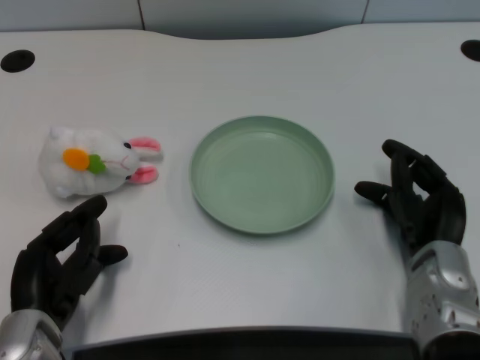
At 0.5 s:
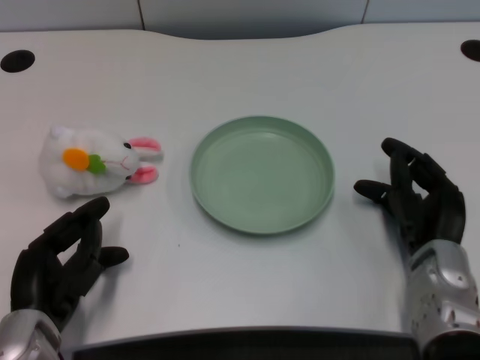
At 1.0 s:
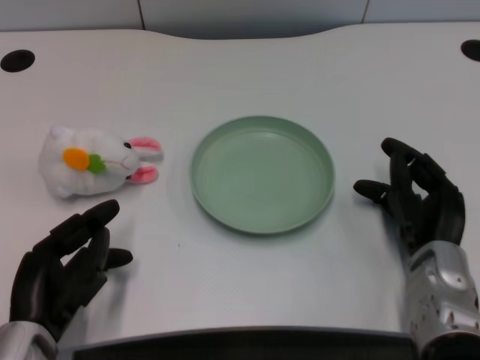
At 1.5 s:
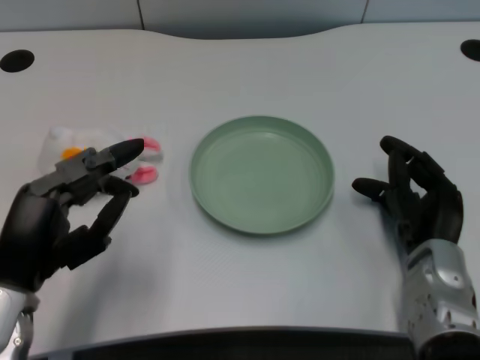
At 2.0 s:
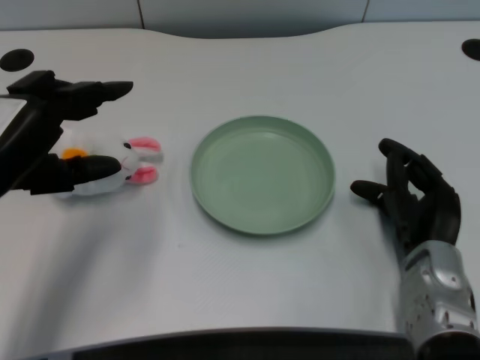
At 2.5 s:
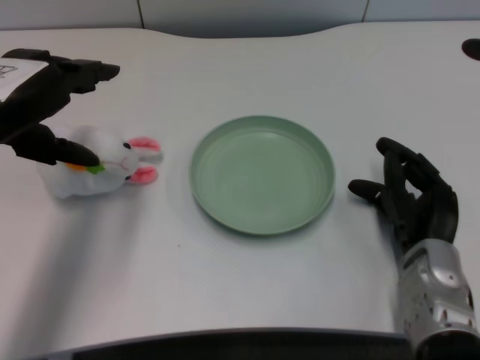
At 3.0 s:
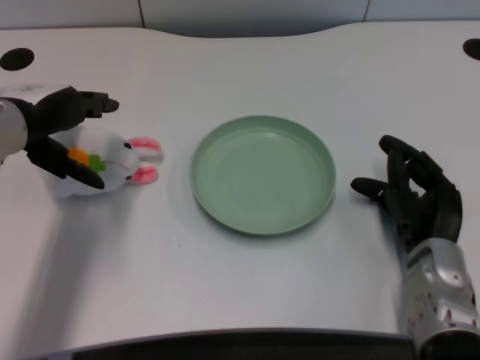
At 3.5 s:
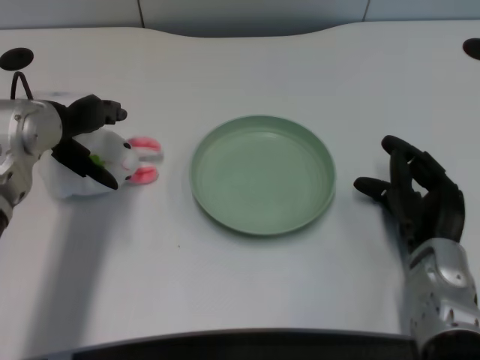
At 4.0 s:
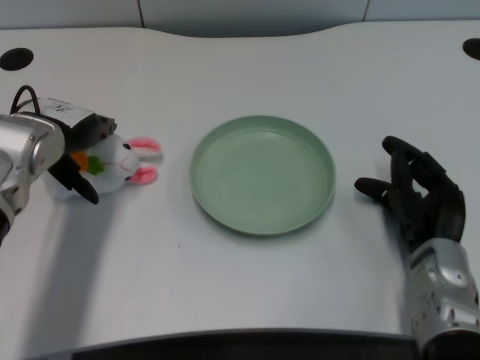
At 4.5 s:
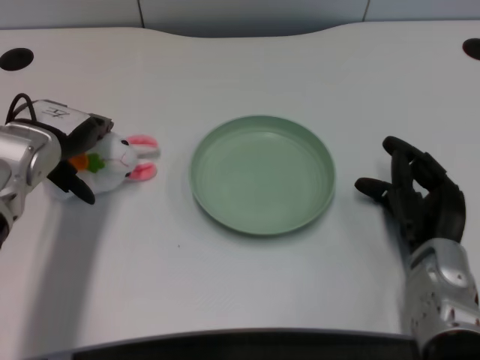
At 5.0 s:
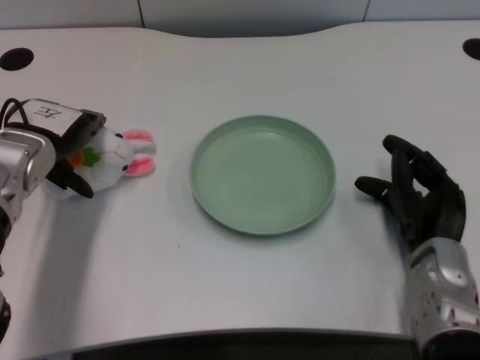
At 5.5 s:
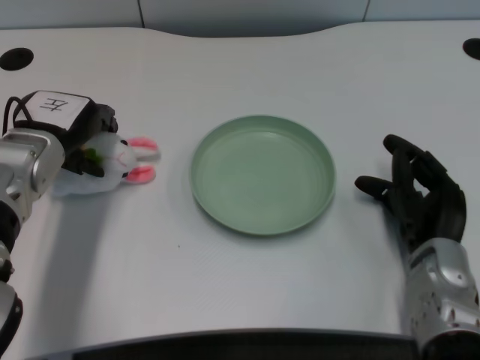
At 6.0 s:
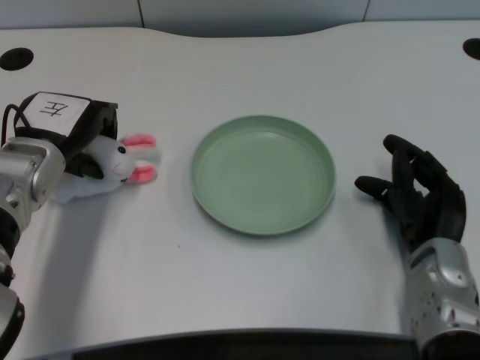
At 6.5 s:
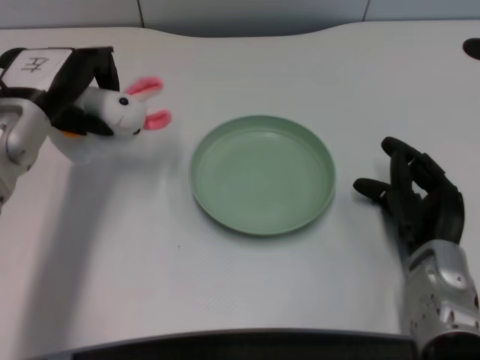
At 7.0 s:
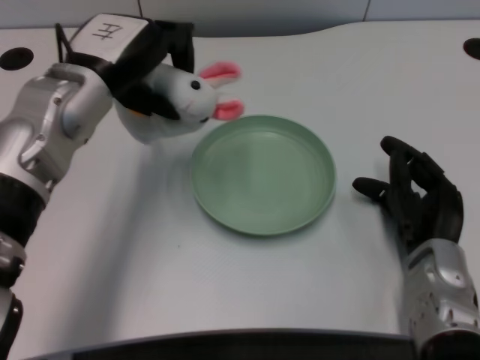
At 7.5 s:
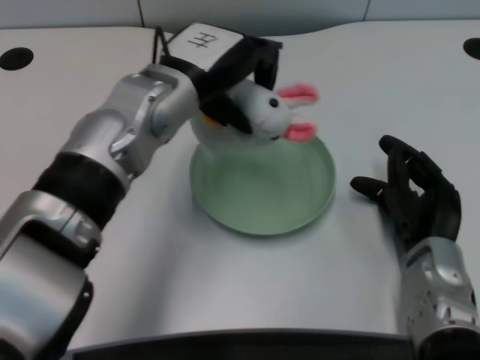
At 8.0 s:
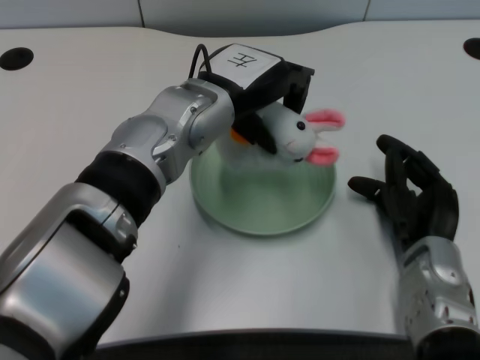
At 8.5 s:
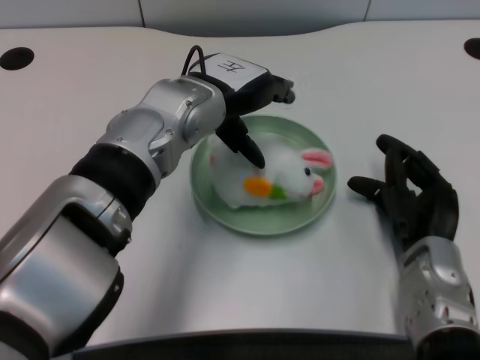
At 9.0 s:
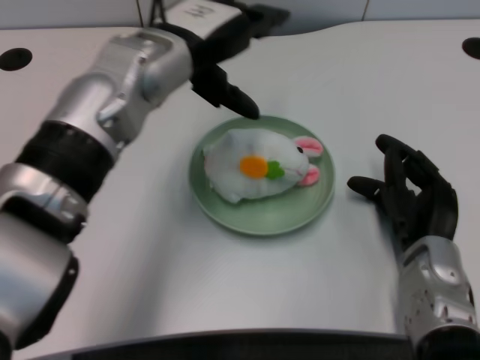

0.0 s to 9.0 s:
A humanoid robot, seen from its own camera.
Task of the whole recording: pick up the rabbit doll from the table and place it on the plate.
Step, 1.0 to 6.0 s: Grasp the rabbit doll with the left gripper.
Step, 6.5 to 8.5 s: Place the rabbit doll into the plate with the left gripper.
2.0 to 4.5 s: The left hand heads forward, covering roughly 10 cm.
4.5 to 7.0 s: The left hand goes some 10 cm to the right and upward.
7.0 to 9.0 s: The left hand moves to the right, roughly 5 cm.

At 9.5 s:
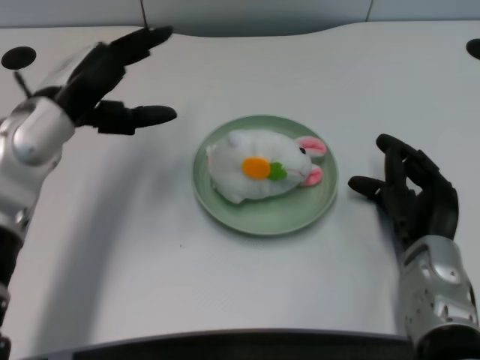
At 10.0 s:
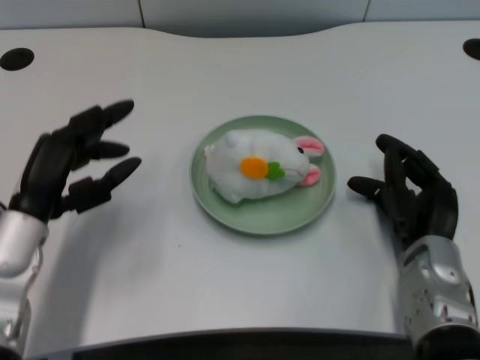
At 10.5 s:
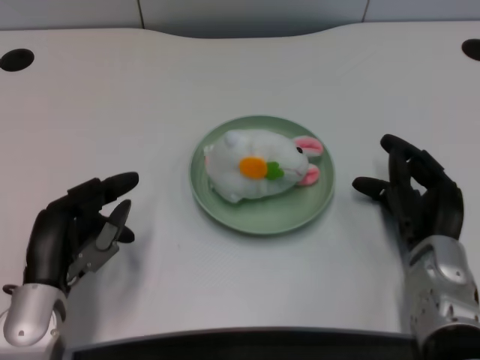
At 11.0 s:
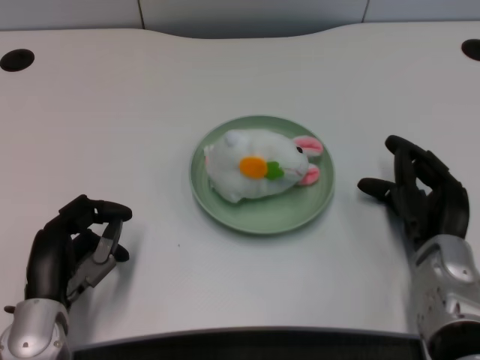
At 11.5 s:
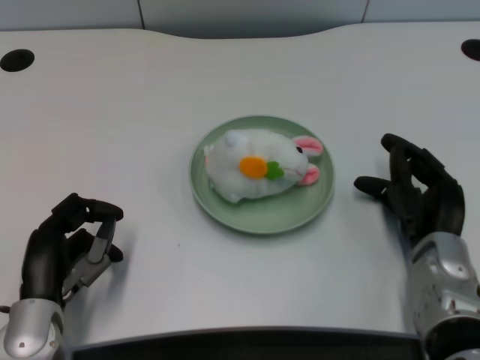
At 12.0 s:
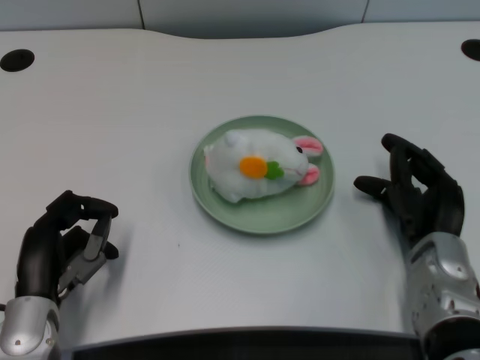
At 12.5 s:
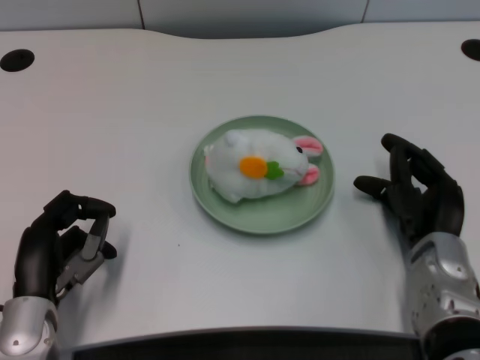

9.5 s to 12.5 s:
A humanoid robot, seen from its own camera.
Task of the whole recording: pick up the rabbit doll from the table and place it on the plate.
9.5 to 11.0 s: The left hand goes approximately 20 cm downward and backward.
11.0 to 12.5 s: Neither hand changes place.

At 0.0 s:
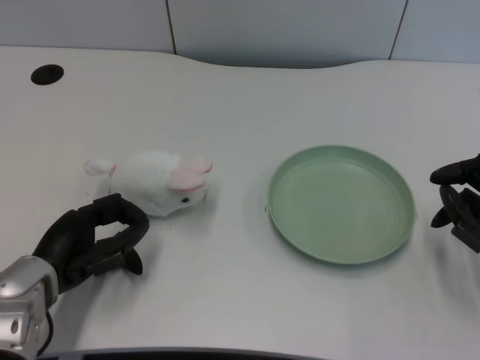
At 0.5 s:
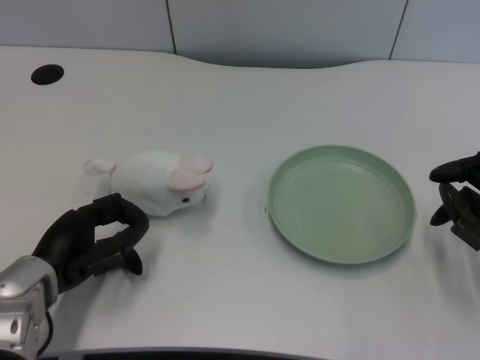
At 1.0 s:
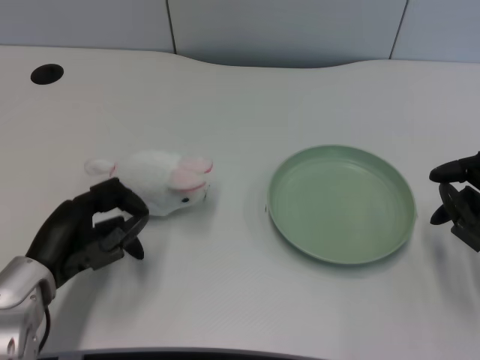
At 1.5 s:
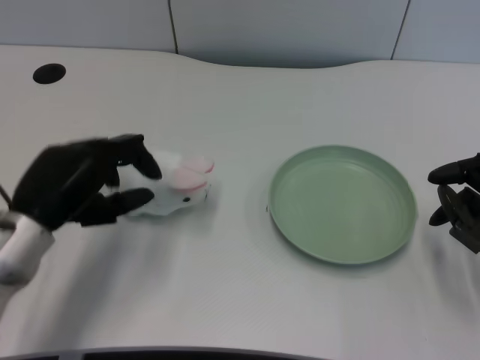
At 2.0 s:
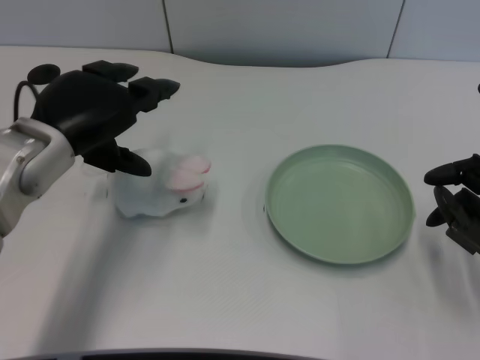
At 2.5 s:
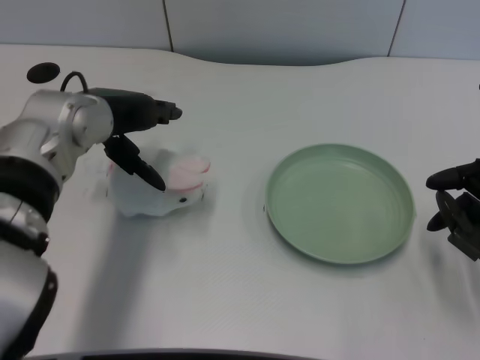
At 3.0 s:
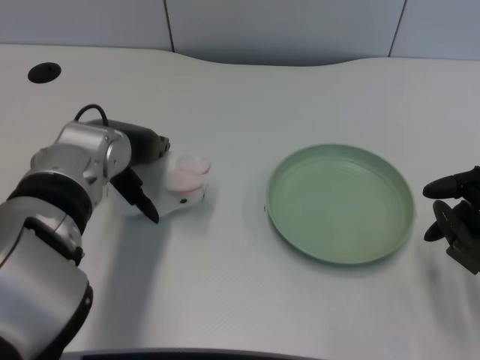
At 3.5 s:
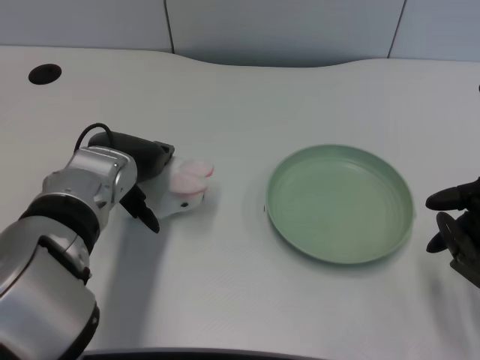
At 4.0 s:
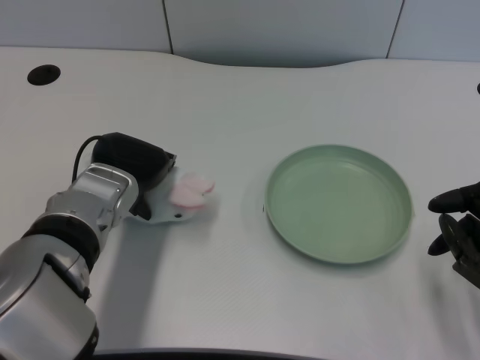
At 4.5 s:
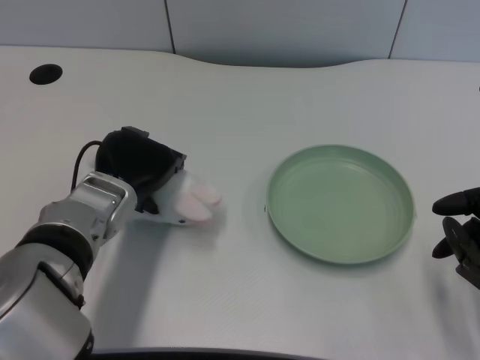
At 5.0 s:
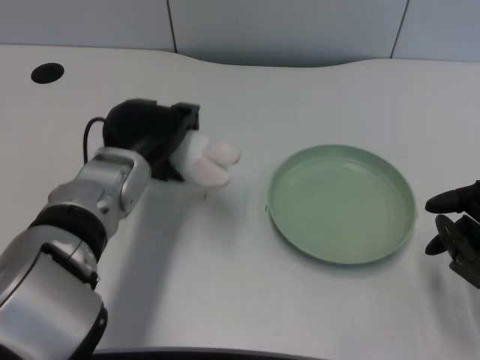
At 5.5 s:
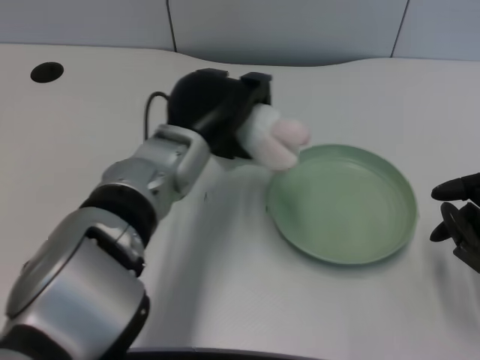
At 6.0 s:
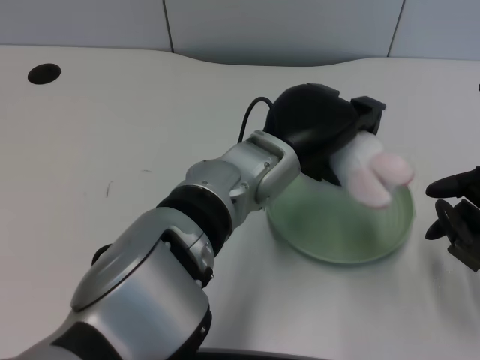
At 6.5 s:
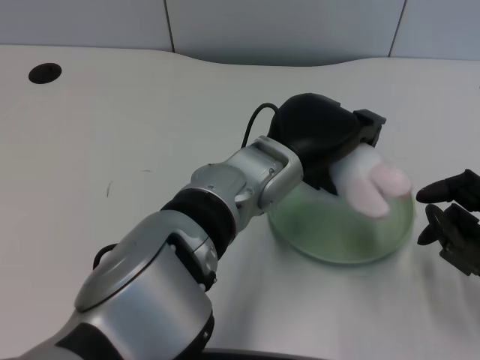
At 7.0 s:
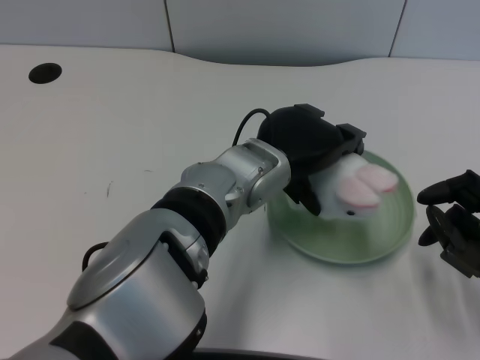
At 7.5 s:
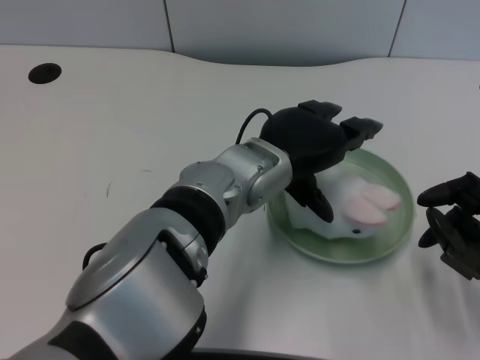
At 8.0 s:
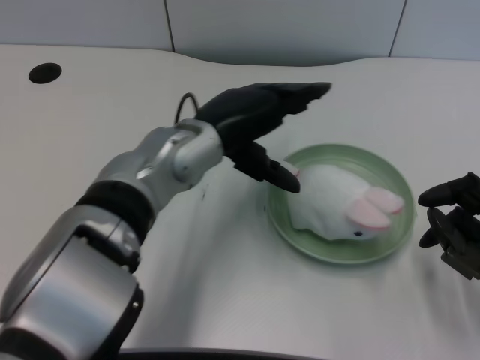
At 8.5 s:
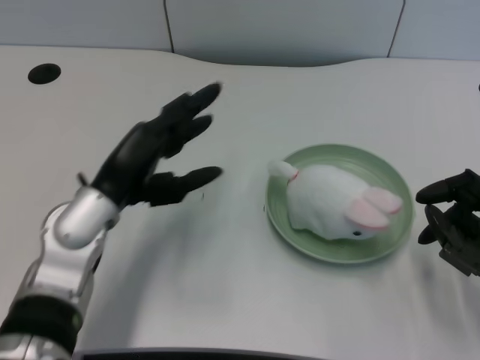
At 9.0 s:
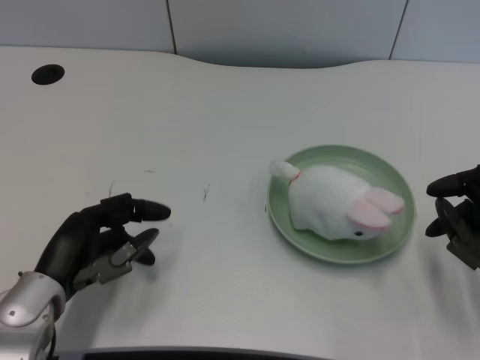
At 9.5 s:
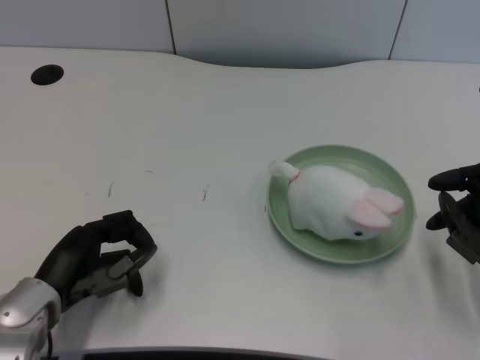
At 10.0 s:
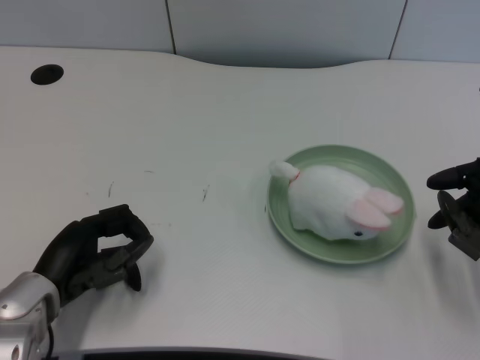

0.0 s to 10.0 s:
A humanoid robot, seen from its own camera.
Task of the whole recording: pick up the rabbit doll from the table and place it on the plate.
Step, 1.0 to 4.5 s: Grasp the rabbit doll with the left gripper.
Step, 5.0 to 7.0 s: Place the rabbit doll into the plate with the left gripper.
2.0 to 4.0 s: The left hand shifts some 10 cm downward and to the right.
4.0 to 6.0 s: The left hand shifts about 15 cm to the right.
6.0 to 8.0 s: The left hand shifts some 5 cm to the left.
8.0 to 10.0 s: The left hand is displaced to the left, downward and backward by roughly 20 cm.

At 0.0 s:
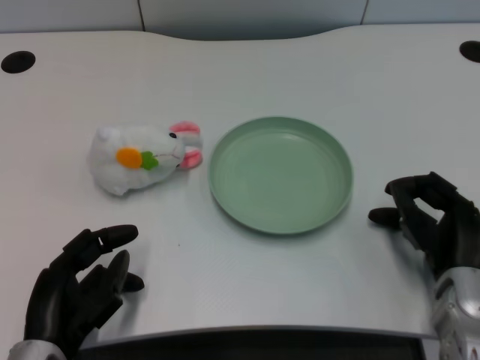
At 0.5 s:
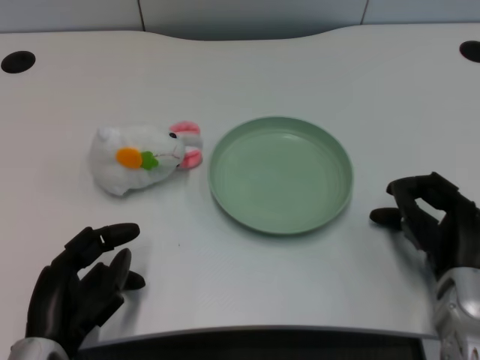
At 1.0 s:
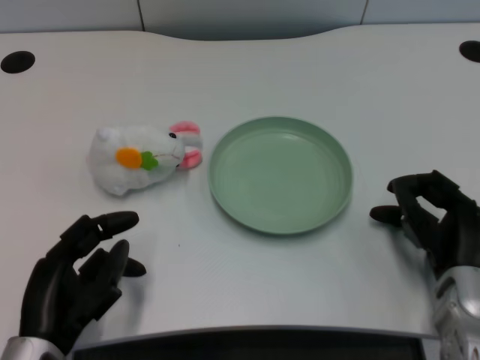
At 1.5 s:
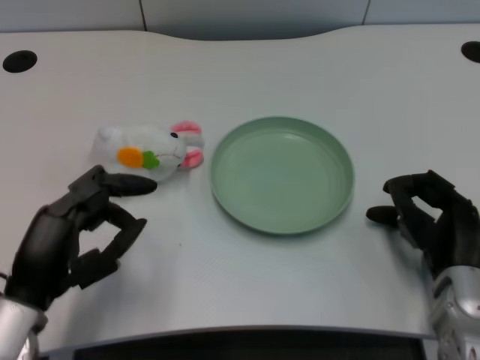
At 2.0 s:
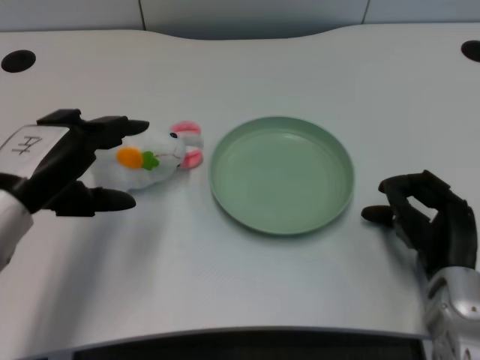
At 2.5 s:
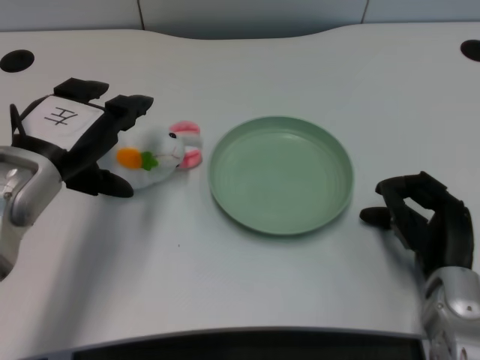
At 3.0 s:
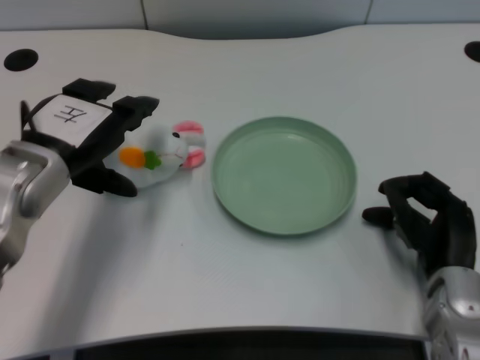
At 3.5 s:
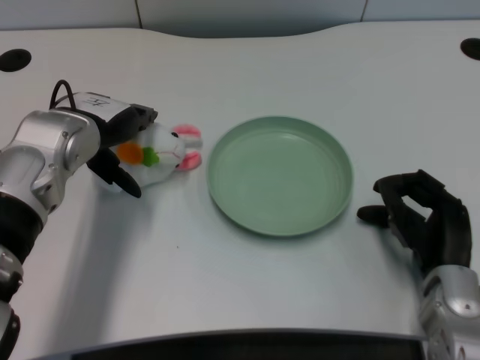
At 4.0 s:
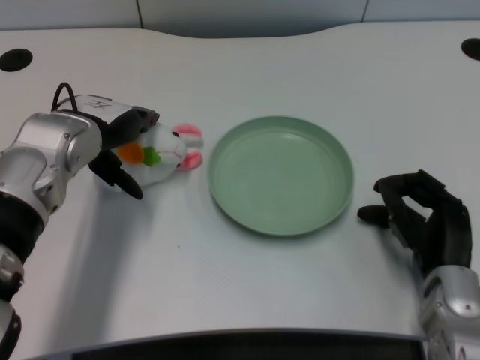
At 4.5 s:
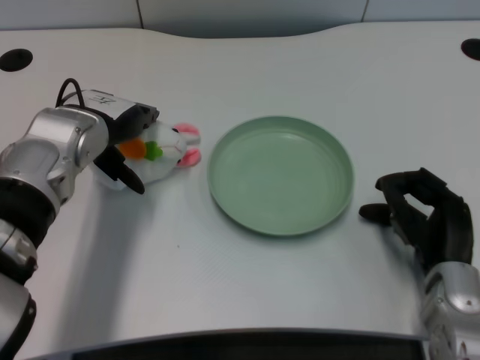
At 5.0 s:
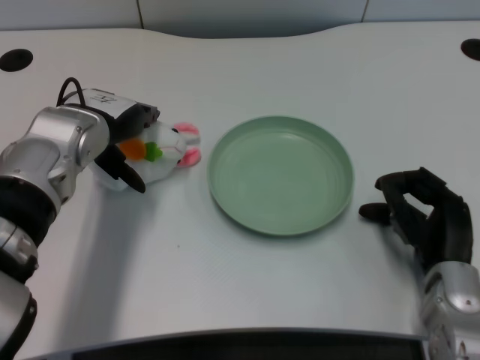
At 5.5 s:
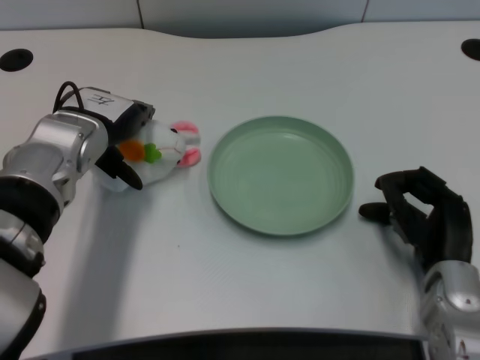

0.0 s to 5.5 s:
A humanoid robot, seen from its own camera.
Task of the whole recording: pick up the rabbit doll from the table and place it on the plate.
2.0 to 3.5 s: The left hand shifts approximately 10 cm forward.
3.5 to 5.5 s: The hands make only small movements.
